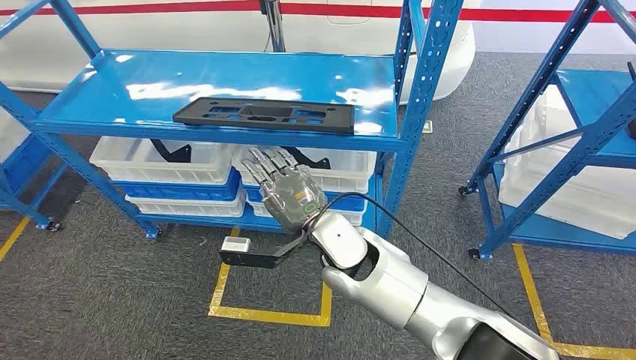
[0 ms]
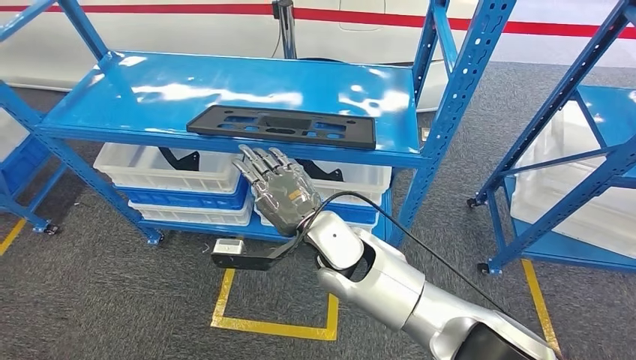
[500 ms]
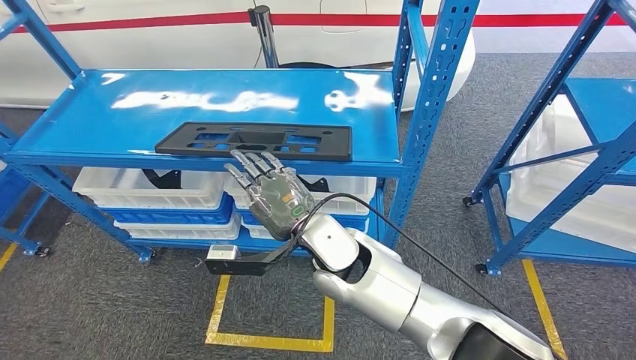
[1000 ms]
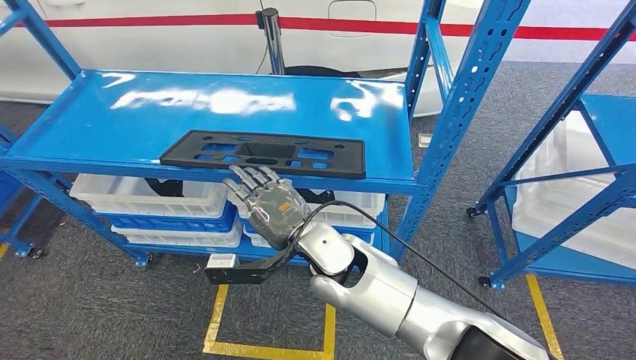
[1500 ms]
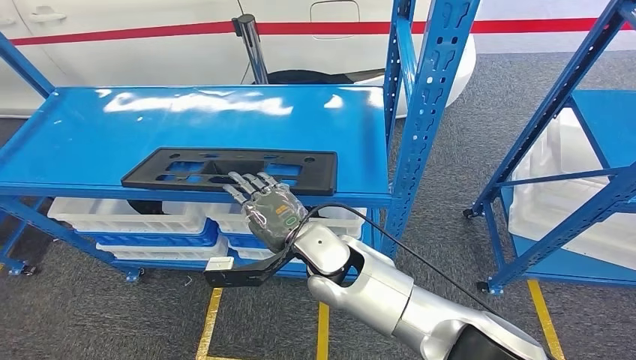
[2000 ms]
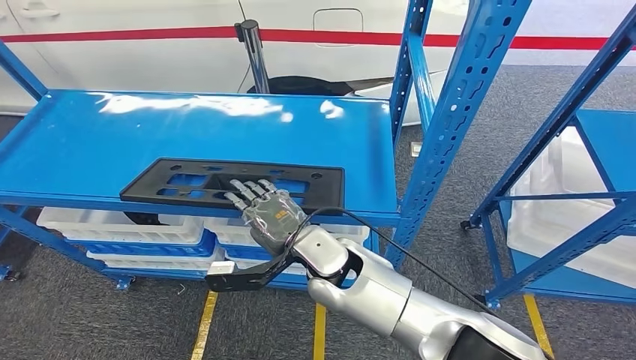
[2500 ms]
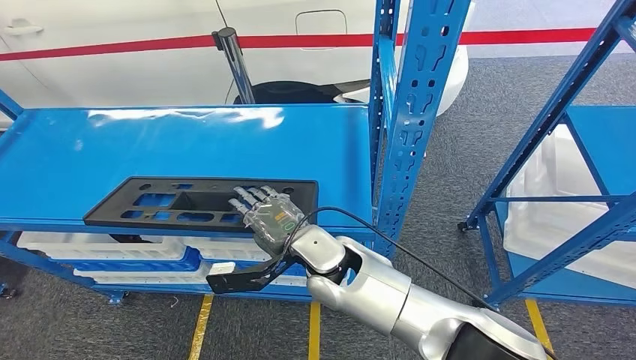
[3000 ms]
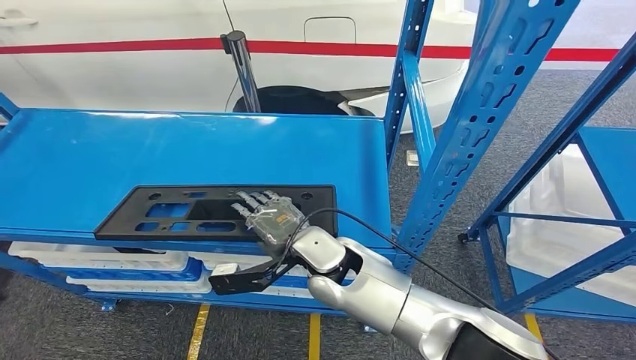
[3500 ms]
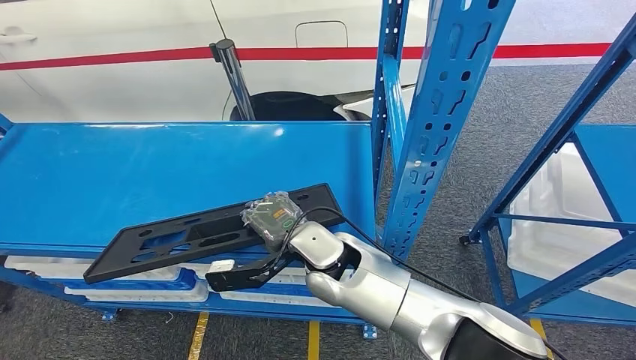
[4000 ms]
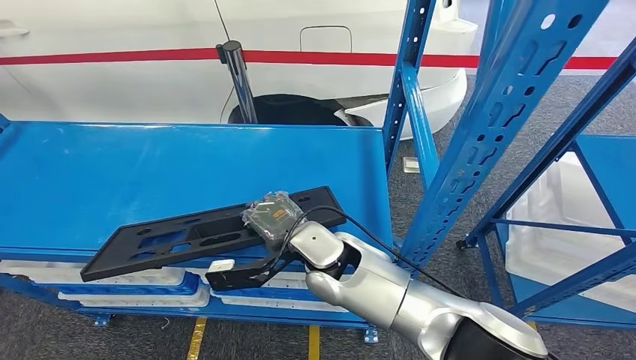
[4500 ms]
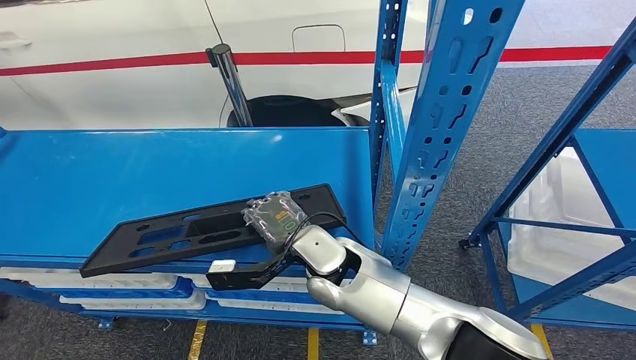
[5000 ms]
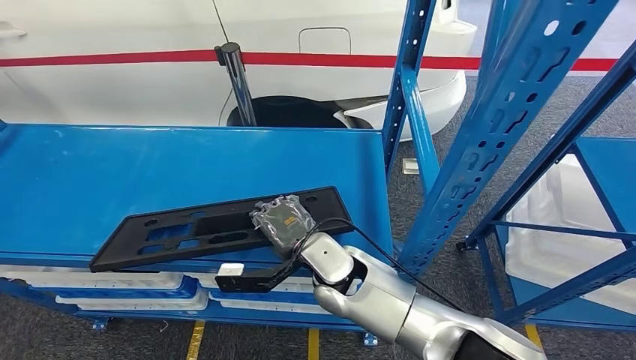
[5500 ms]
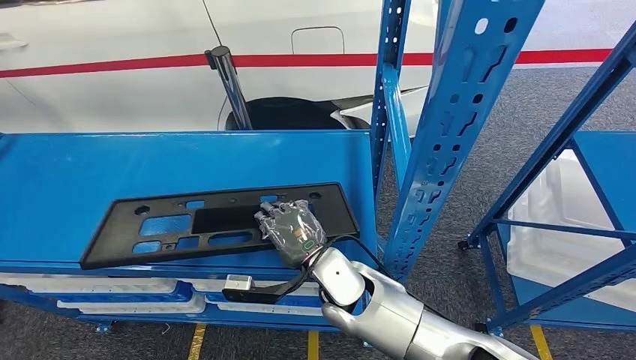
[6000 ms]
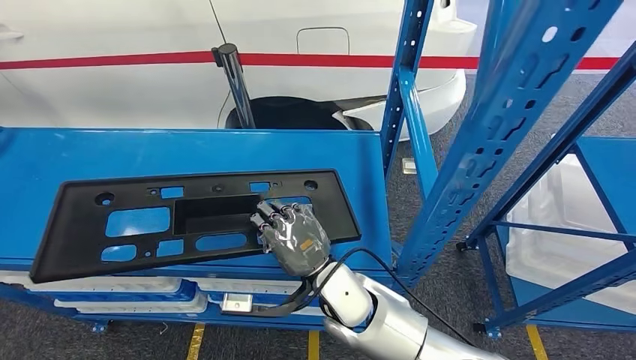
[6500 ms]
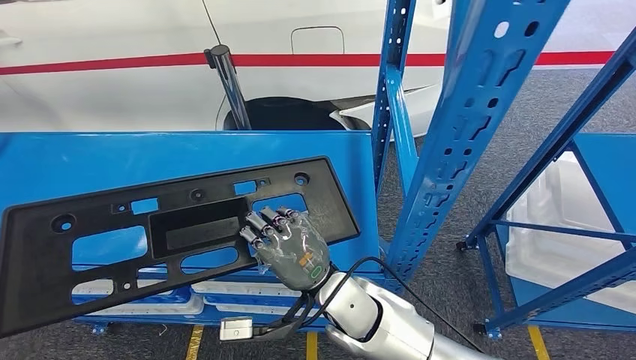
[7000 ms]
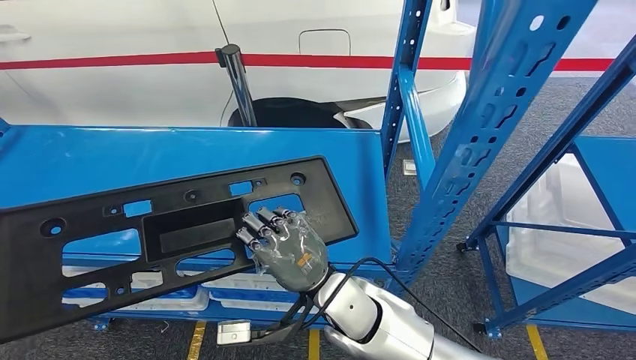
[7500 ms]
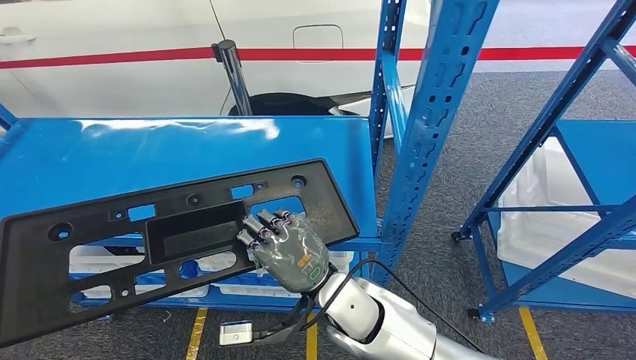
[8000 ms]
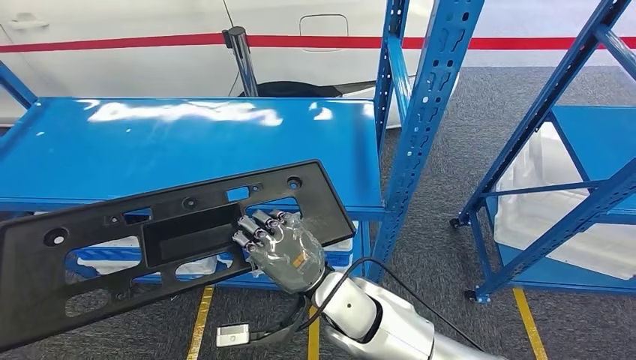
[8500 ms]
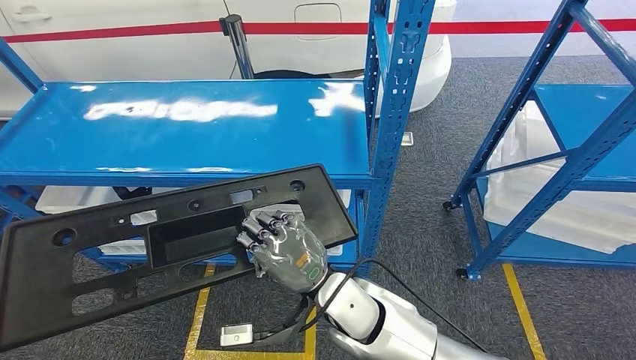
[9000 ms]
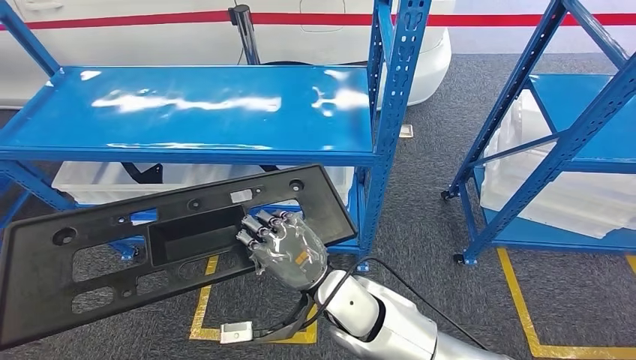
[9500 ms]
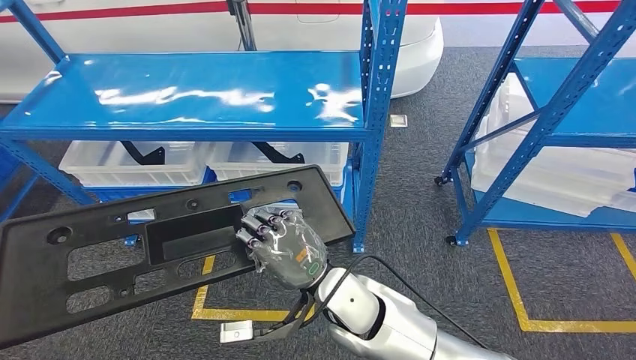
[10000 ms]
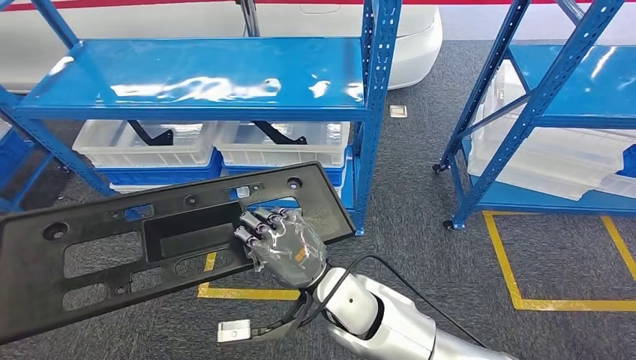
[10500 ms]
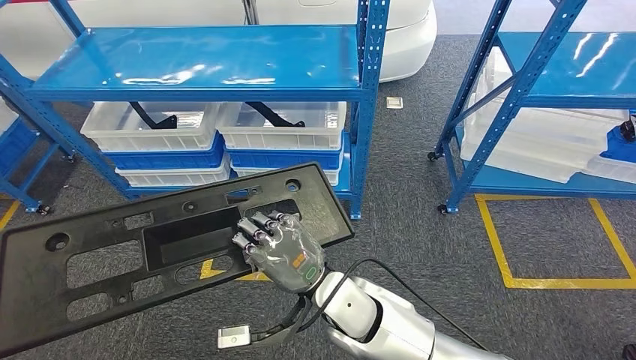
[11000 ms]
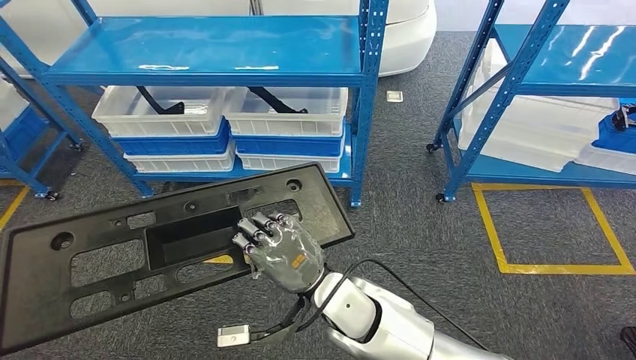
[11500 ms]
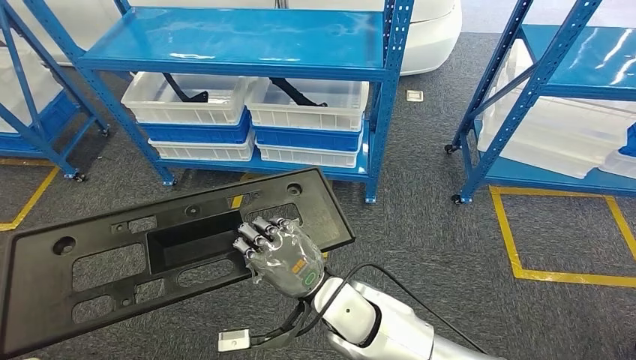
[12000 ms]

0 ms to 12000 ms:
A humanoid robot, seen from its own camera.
Step, 0 ms to 9000 ms: Pick up the large material from the shelf.

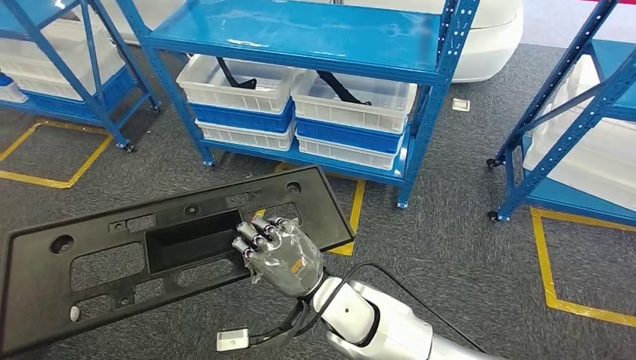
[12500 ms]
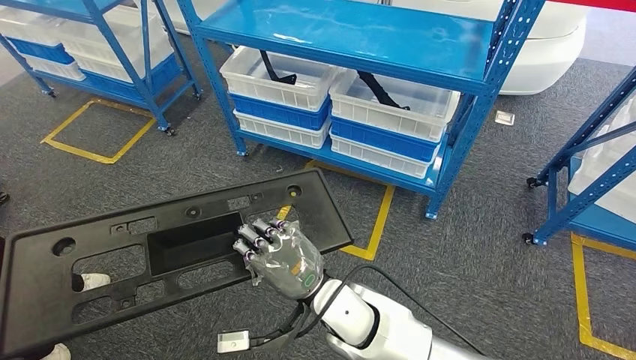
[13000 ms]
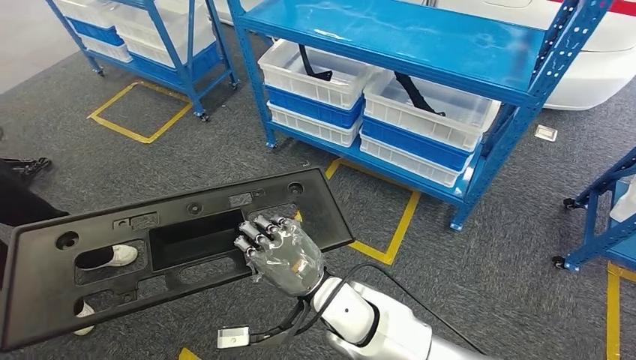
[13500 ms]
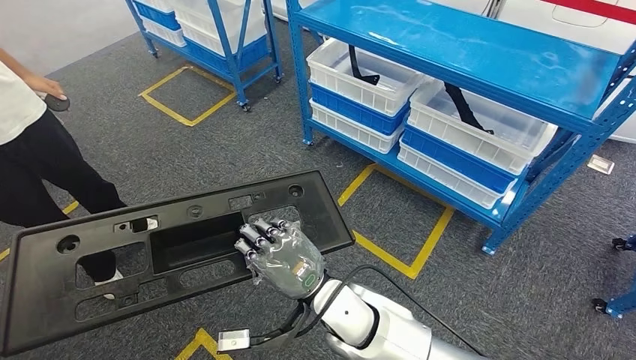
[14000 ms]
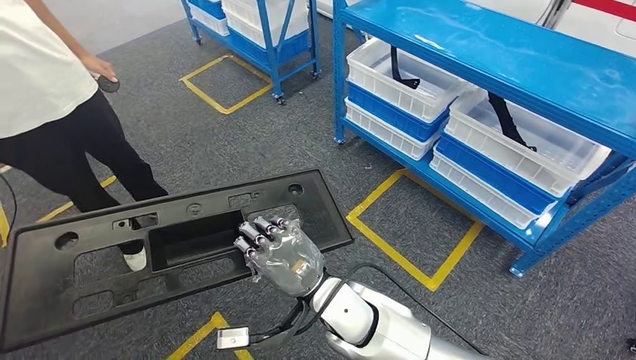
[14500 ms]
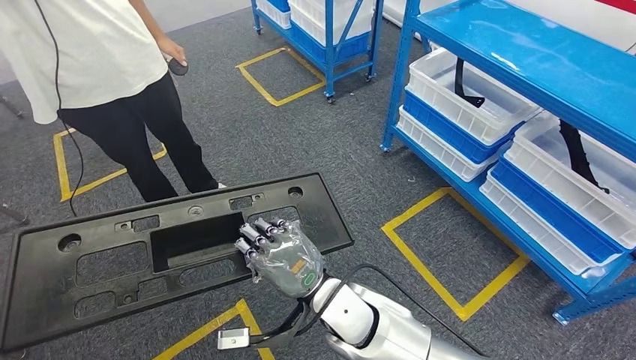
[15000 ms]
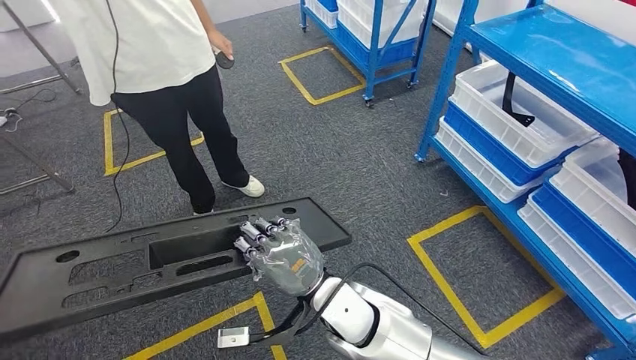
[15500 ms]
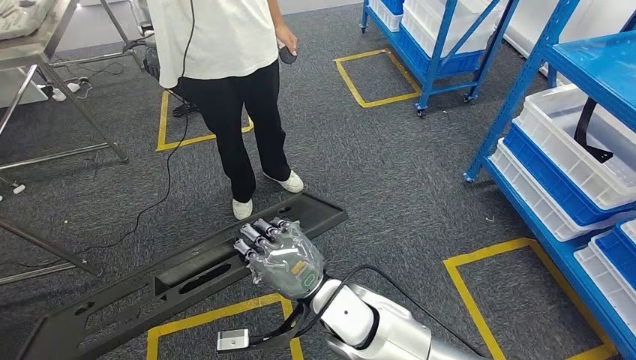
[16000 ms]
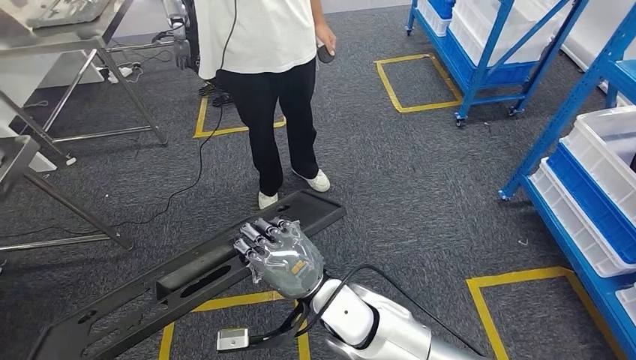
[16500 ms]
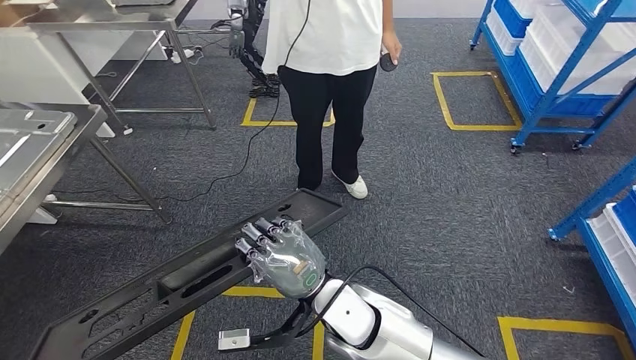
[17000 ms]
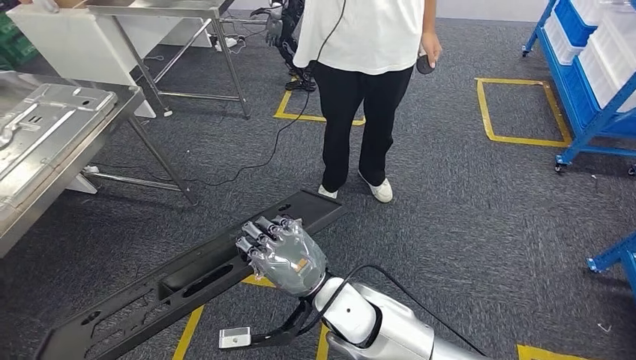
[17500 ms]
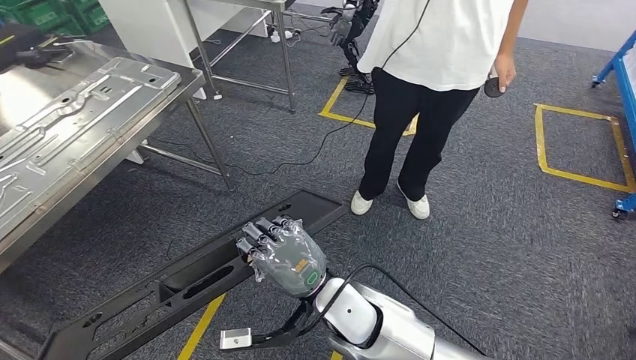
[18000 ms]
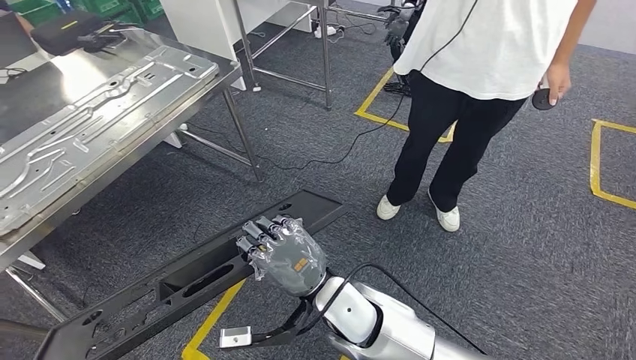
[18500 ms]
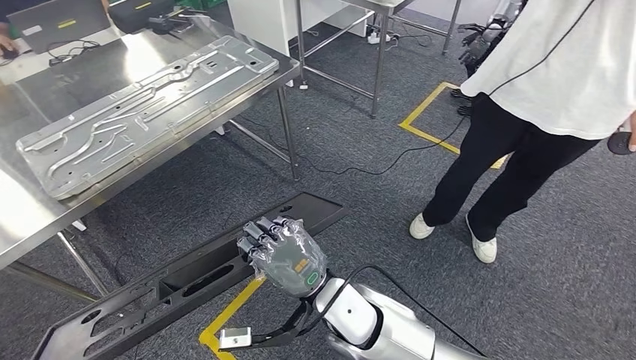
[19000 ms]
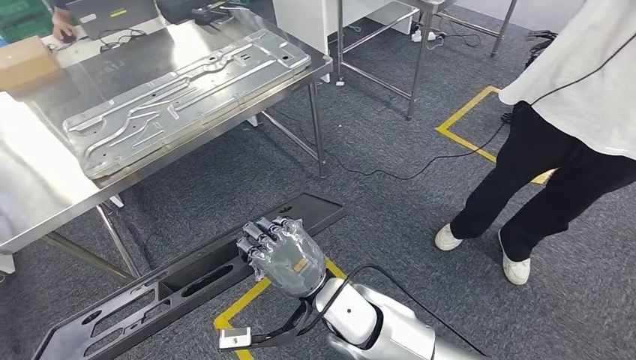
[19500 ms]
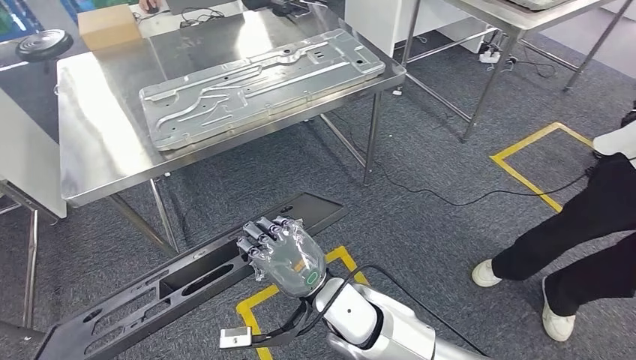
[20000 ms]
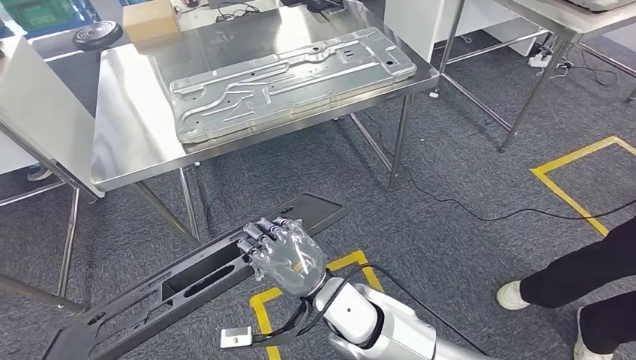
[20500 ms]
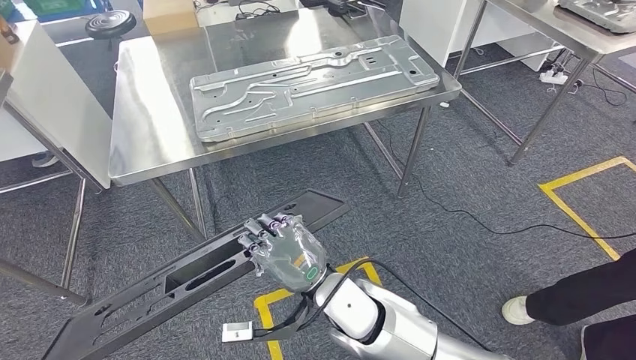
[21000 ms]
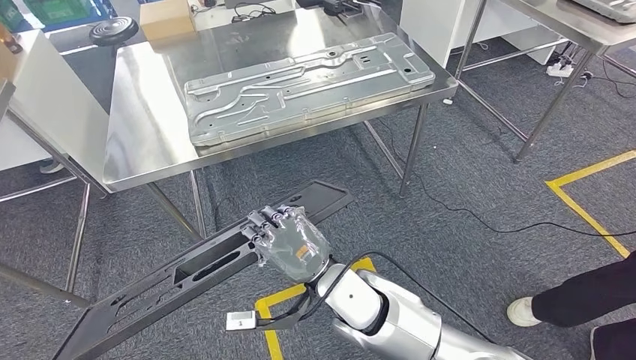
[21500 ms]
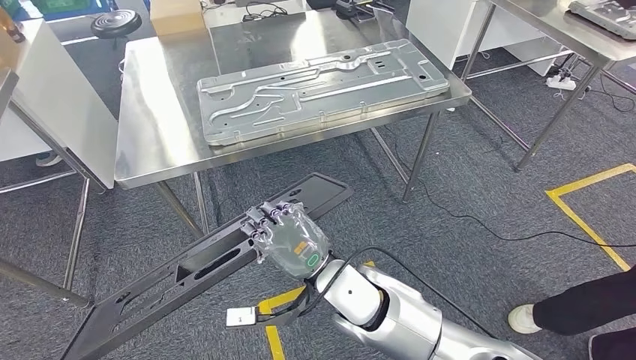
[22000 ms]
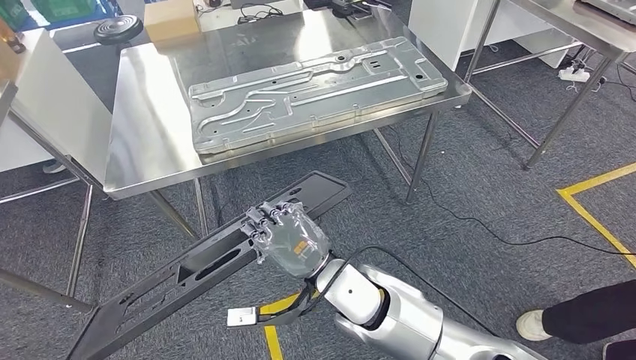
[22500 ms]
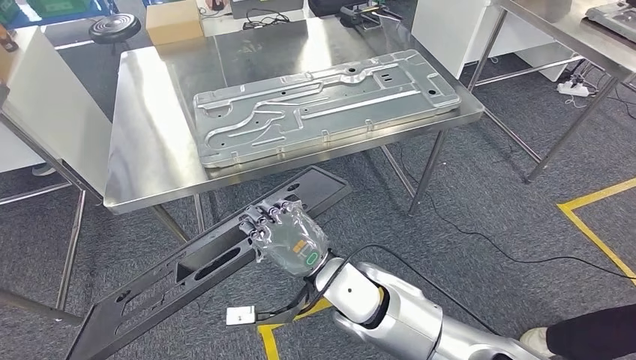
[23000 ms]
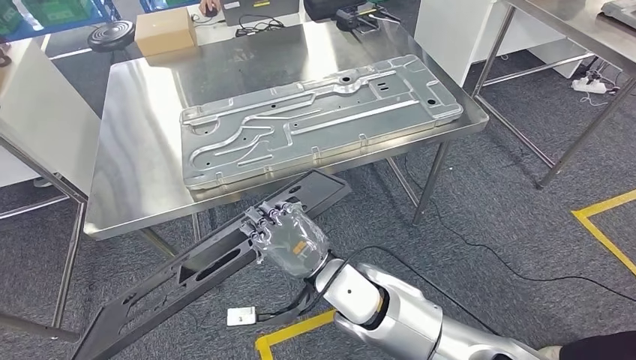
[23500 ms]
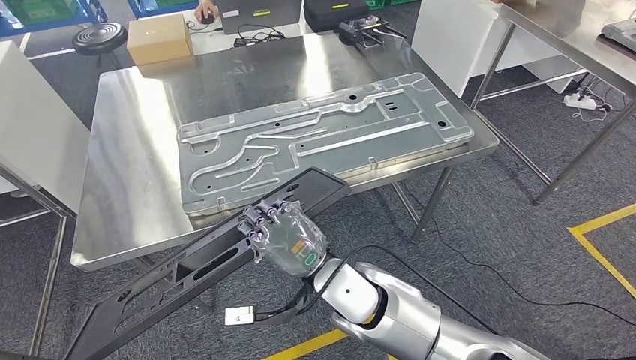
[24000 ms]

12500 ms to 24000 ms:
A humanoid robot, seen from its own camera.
Step, 12500 ms to 23500 ms: Move the large material to the workbench.
